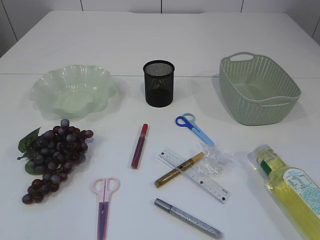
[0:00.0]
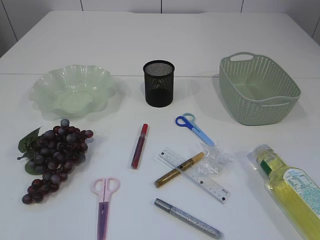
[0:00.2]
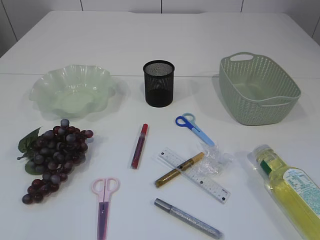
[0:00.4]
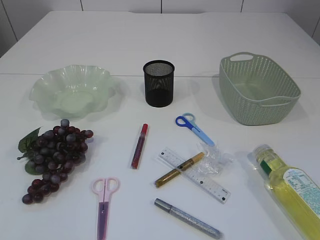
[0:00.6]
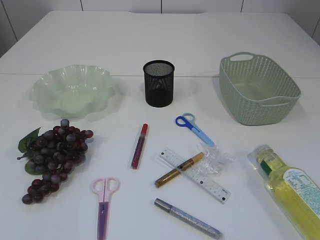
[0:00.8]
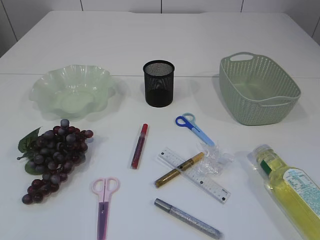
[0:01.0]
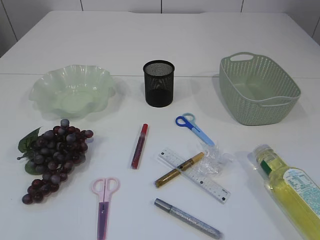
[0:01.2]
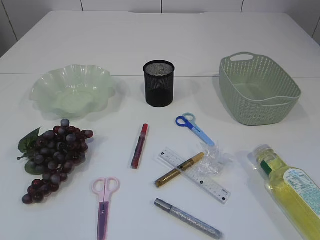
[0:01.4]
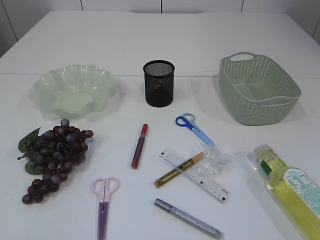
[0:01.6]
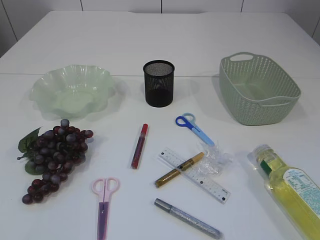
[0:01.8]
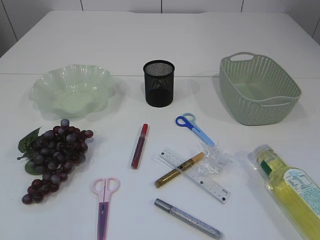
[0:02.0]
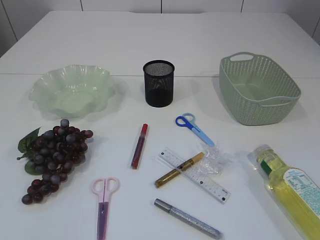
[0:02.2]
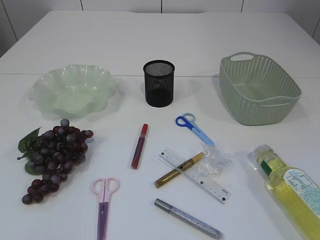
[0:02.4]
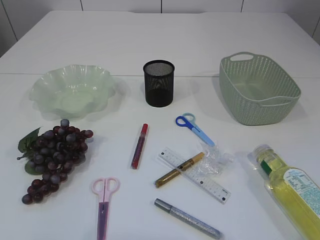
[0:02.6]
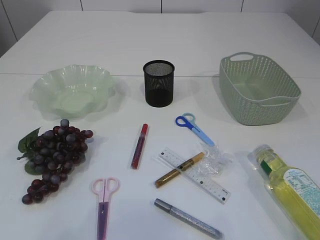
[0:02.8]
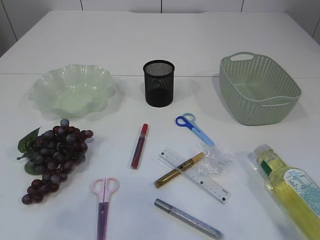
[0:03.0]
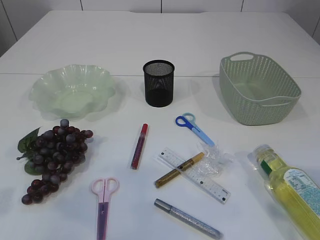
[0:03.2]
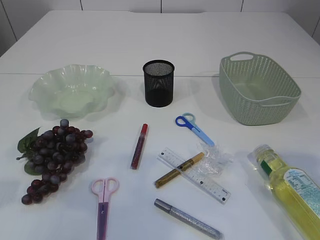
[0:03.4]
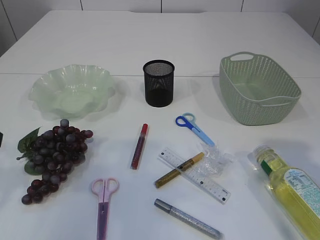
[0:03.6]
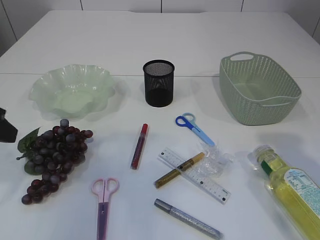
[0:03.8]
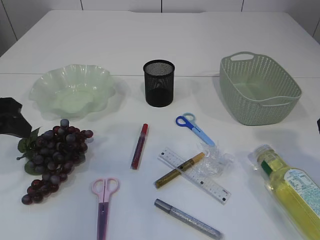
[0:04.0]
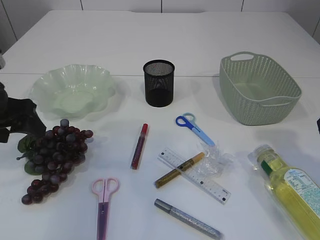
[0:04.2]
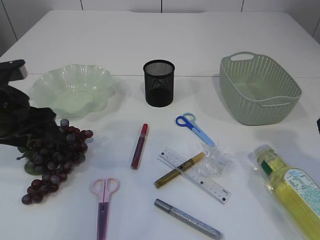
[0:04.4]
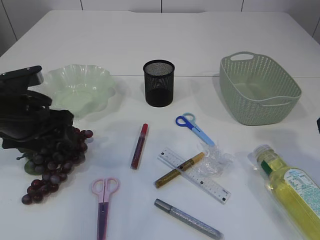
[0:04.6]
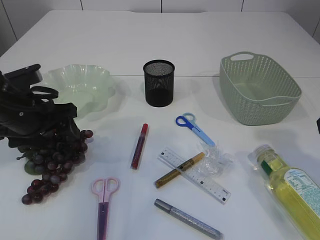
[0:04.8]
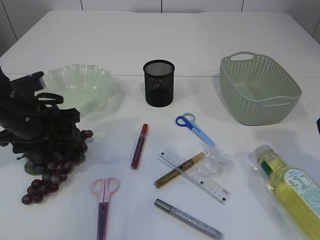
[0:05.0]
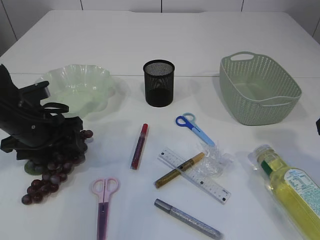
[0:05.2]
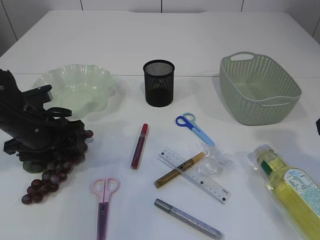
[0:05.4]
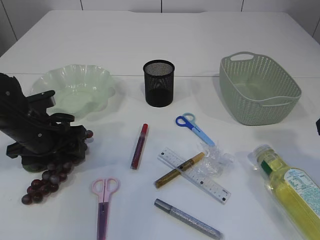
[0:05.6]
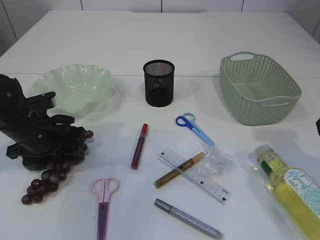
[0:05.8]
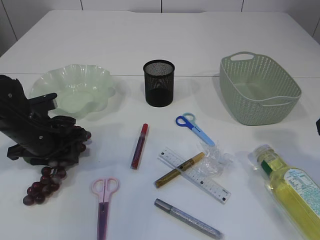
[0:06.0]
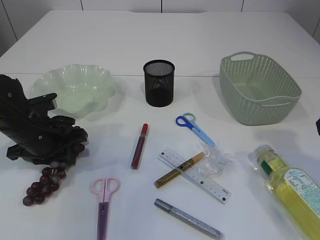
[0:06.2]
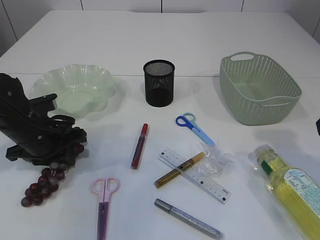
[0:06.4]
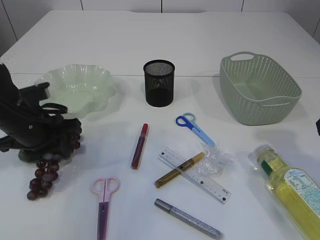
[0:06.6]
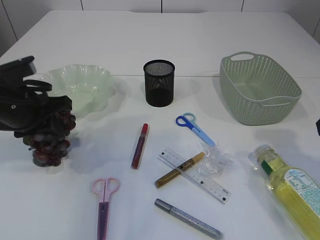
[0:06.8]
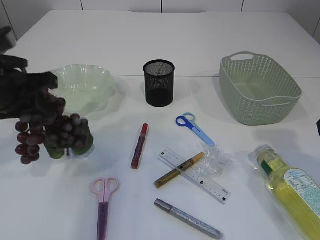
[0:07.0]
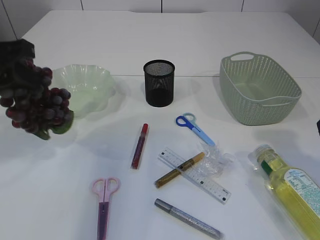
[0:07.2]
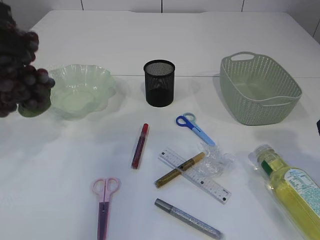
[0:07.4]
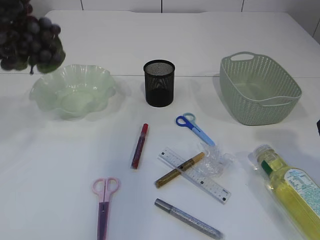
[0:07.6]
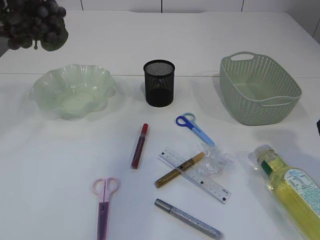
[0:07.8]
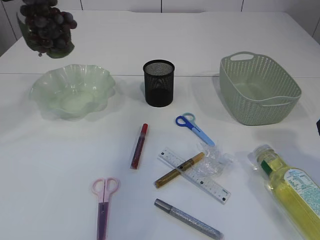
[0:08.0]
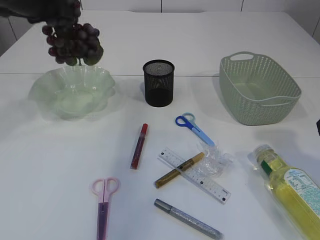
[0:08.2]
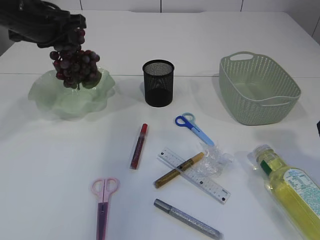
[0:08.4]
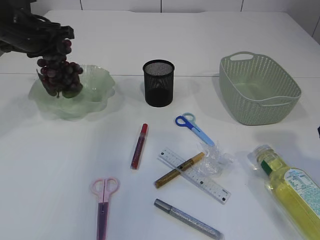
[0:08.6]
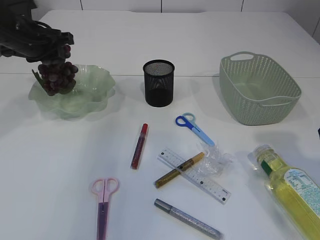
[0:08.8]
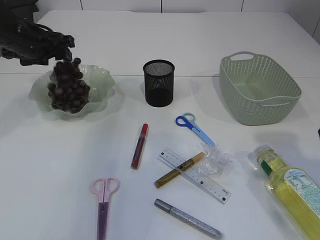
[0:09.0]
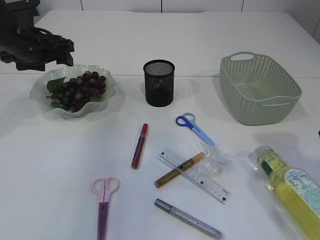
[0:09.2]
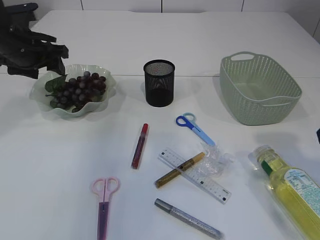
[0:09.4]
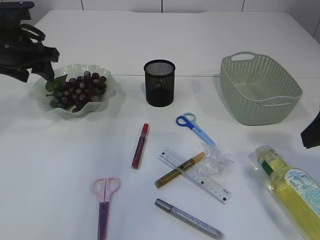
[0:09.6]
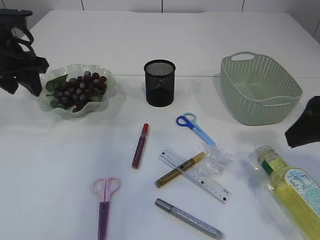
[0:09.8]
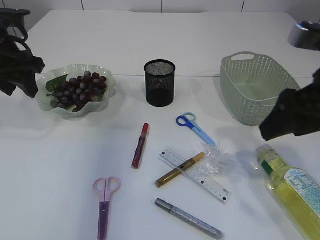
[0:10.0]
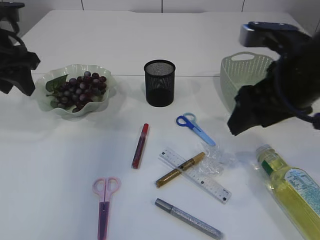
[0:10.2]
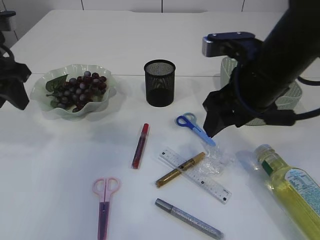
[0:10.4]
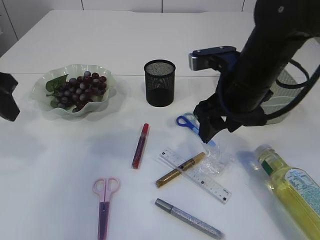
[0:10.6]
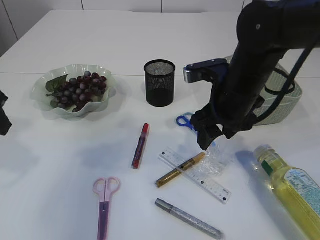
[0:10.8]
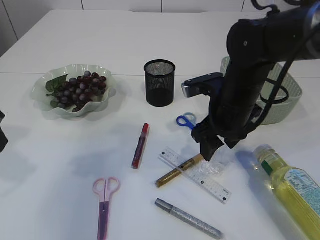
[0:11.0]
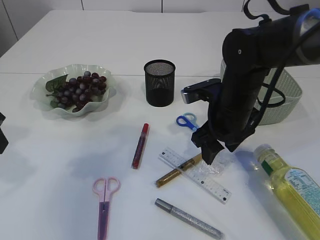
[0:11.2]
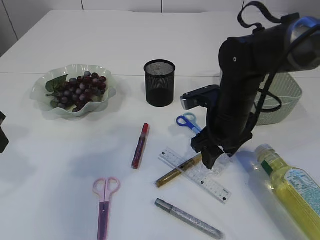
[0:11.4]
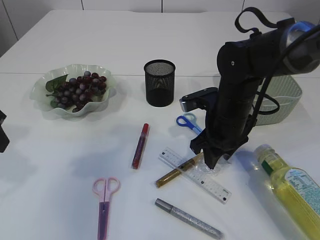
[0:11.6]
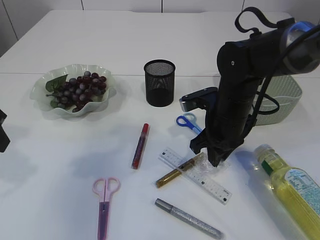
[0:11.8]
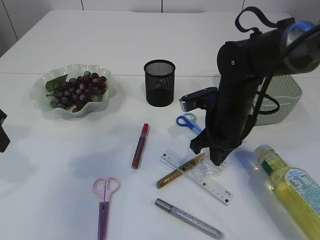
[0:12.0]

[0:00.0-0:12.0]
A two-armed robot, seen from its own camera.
Step, 0:00.0 to 0:07.0: Pick up the grapes.
Step, 0:07.2 to 0:09.4: Place the grapes in the plate.
0:03.0 to 0:04.4: The left gripper travels forward and downward by roughly 20 cm, and opens up. Meanwhile the right gripper heads forward, covering about 15 cm.
0:04.4 to 0:06.0: The left gripper travels downward by approximately 10 cm, and closes its fingers.
0:06.0 to 0:07.6: The left gripper shifts about 25 cm upward, and closes its fingers.
0:07.6 to 0:09.0: The left gripper moves forward and downward, about 25 cm, and opens its fingers.
0:09.0 to 0:10.4: The left gripper goes approximately 10 cm backward. The right gripper shifts about 15 cm to the left and forward.
0:10.4 to 0:12.0: The left gripper moves backward, about 10 cm. The right gripper goes some 15 cm downward and forward, and closes.

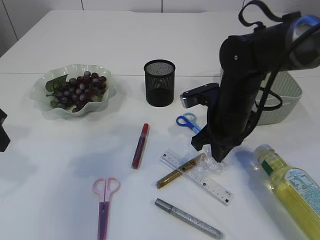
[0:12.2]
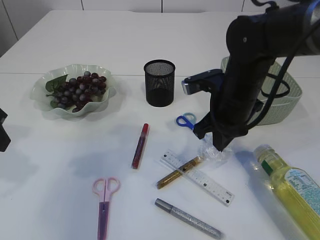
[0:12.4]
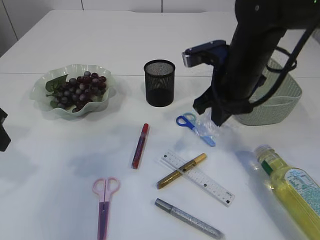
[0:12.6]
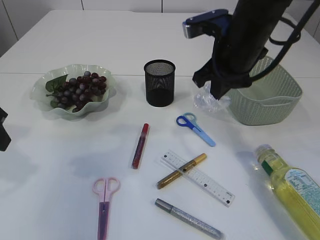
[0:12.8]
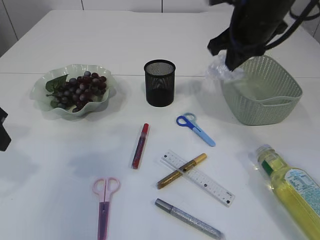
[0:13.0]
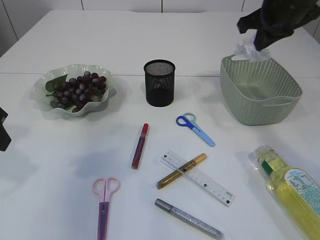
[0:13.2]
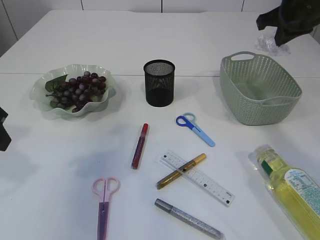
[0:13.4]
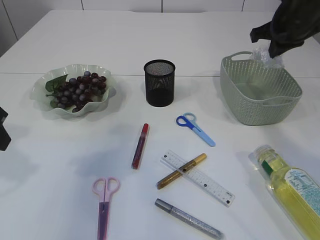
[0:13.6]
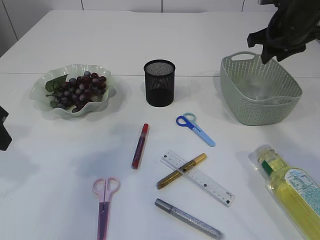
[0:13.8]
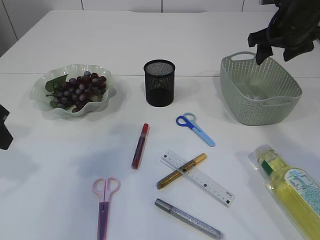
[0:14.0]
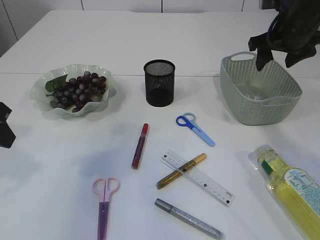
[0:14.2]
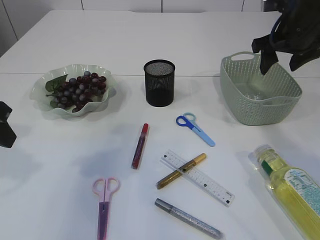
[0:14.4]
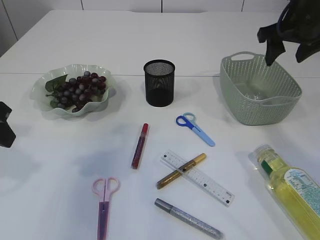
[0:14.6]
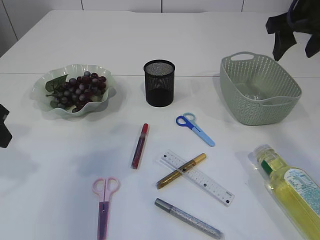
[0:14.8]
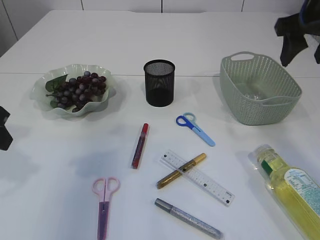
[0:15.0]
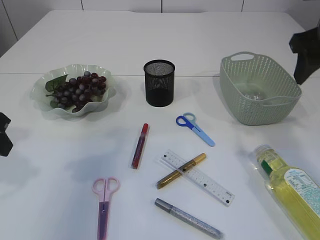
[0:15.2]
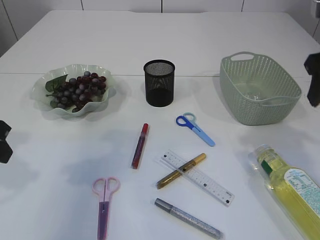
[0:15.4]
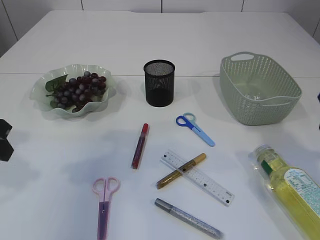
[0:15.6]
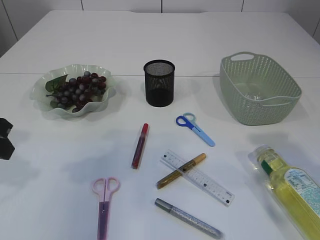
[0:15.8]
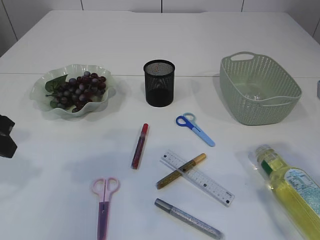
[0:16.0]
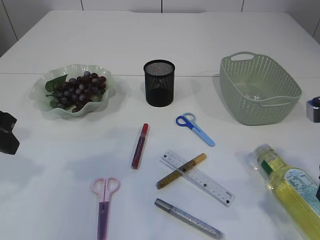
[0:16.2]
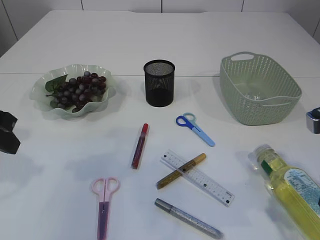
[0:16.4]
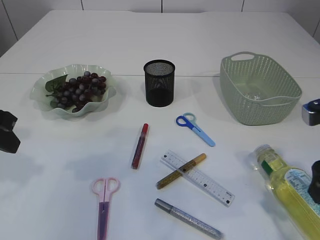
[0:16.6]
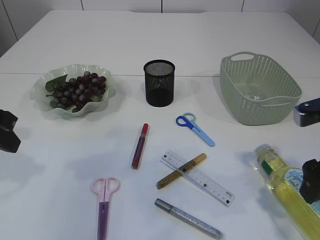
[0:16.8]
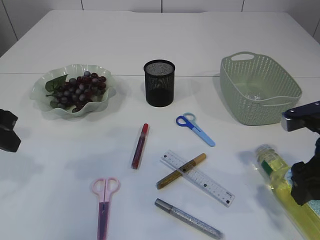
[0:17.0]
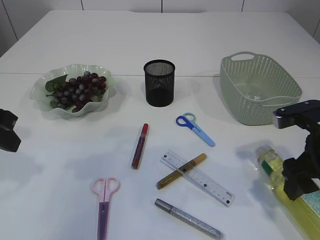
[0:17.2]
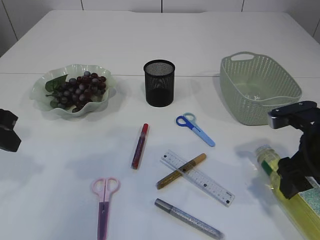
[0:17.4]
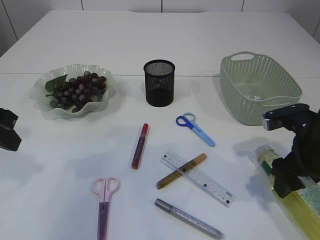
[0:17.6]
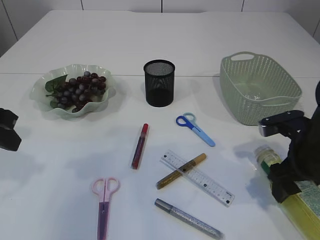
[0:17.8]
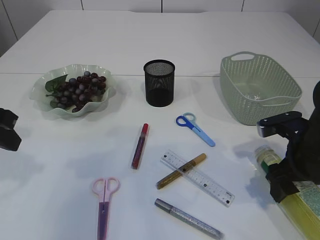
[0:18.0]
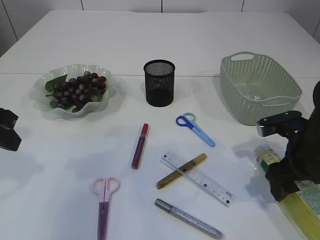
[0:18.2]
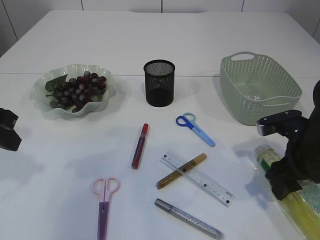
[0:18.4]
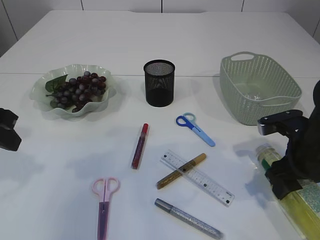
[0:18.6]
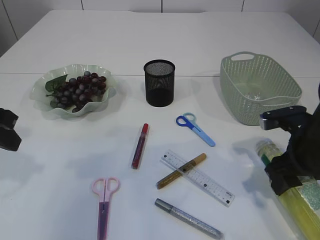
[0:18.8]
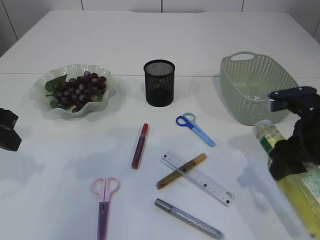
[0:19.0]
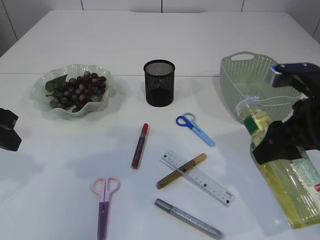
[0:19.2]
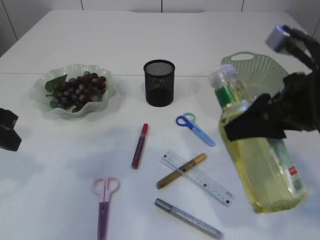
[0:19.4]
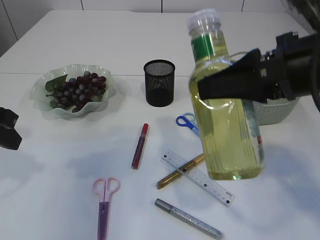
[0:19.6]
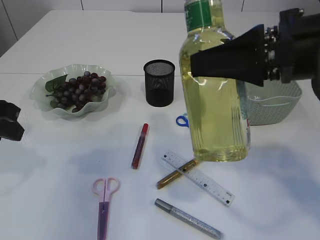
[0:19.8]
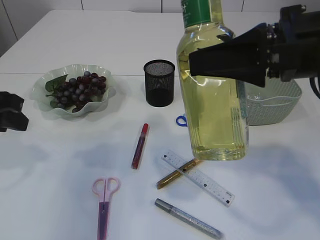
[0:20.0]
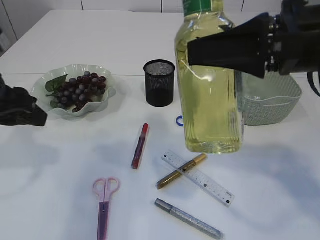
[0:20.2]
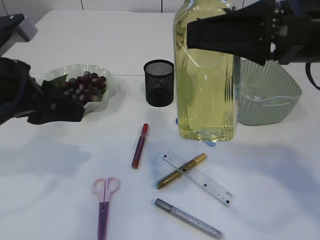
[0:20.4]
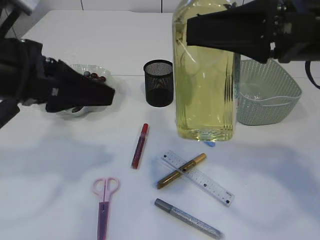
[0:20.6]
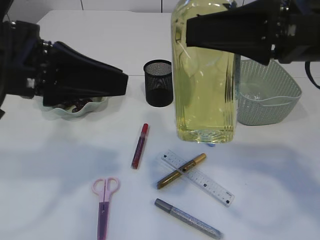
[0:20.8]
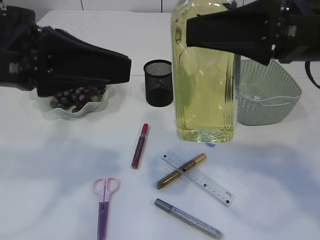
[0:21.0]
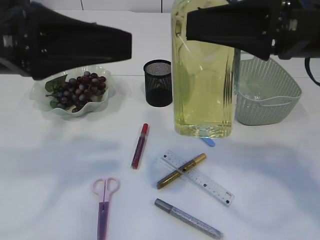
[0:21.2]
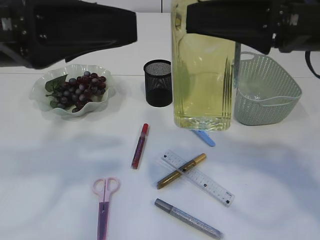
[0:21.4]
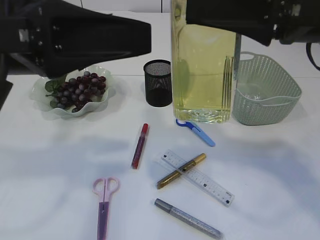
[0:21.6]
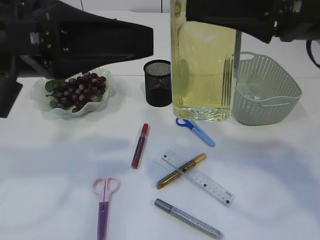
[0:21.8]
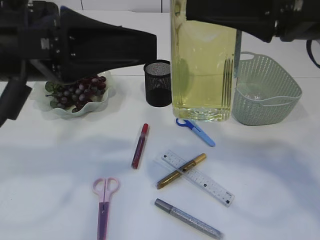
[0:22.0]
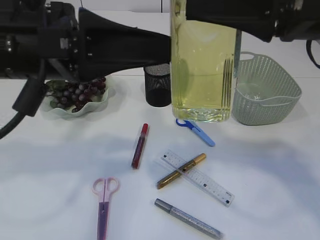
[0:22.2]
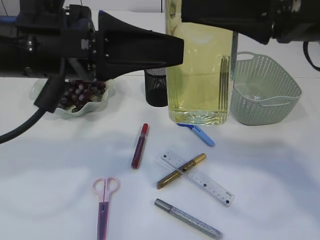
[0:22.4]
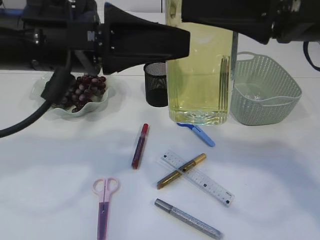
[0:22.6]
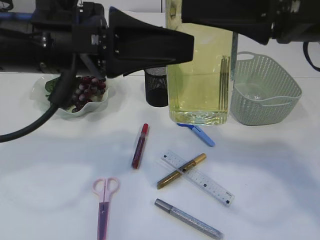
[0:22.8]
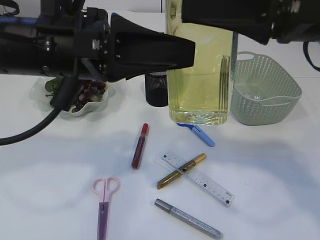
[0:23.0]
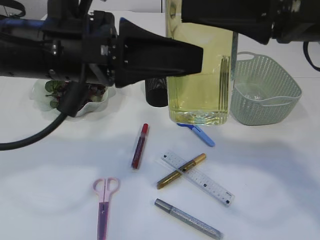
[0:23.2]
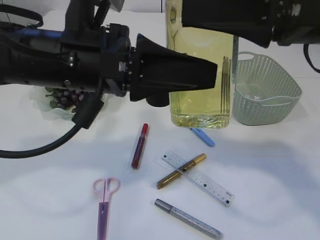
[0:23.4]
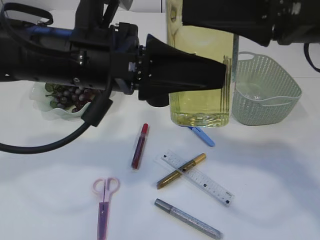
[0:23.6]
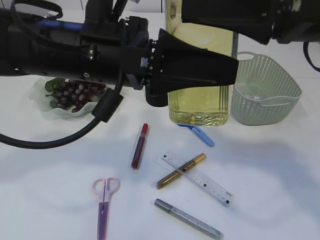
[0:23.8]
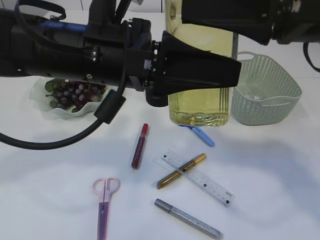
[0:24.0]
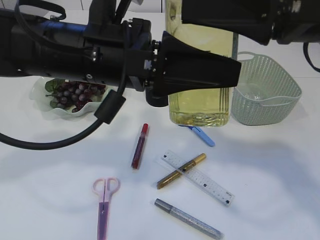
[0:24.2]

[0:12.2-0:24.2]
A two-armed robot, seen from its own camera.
Step, 0:12.8 to 0:14.2: Place the plastic in the basket.
Step, 0:14.4 to 0:19.4: Pick up the bottle with the right arm.
0:12.2 to 0:13.8: The right gripper moves to the right, upward and forward, some 20 cm, and opens.
0:13.8 to 0:15.2: The right gripper goes some 15 cm backward and upward, and opens its fingers.
0:15.2 to 0:16.6: The right gripper travels backward and downward by approximately 15 cm.
0:16.6 to 0:18.2: The right gripper moves downward and forward, about 10 cm.
0:18.2 to 0:19.8: The right gripper moves upward, some 20 cm.
0:19.8 to 0:21.2: The left gripper shifts roughly 15 cm to the right and upward, and opens up.
0:21.2 to 0:22.6: The left gripper ends up roughly 5 cm from where it was.
0:22.6 to 0:24.2: The left gripper shifts by approximately 5 cm.
